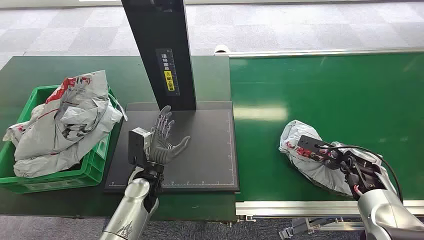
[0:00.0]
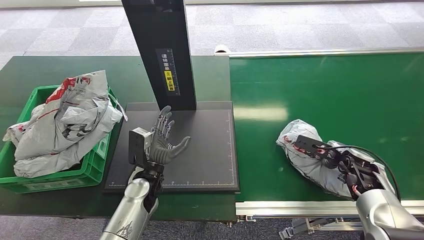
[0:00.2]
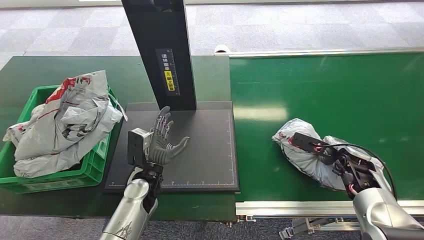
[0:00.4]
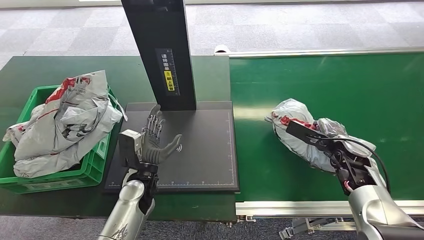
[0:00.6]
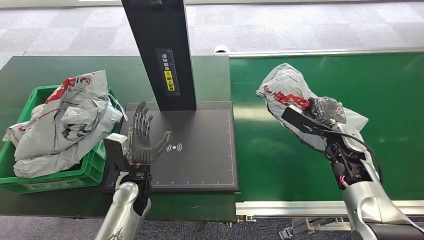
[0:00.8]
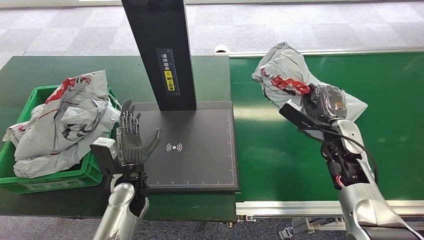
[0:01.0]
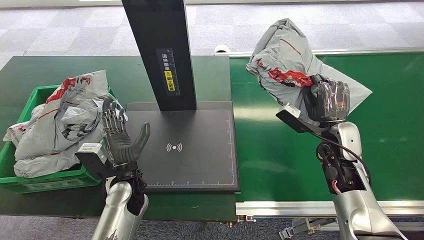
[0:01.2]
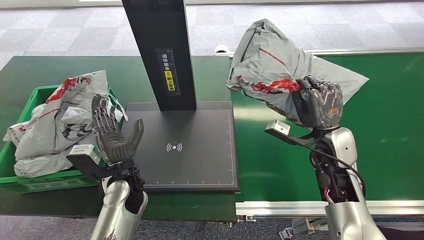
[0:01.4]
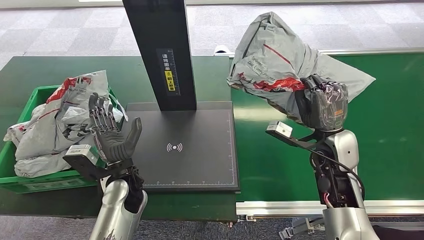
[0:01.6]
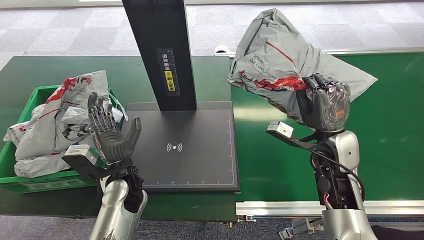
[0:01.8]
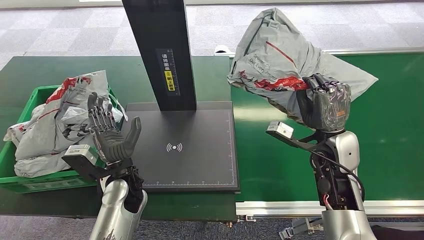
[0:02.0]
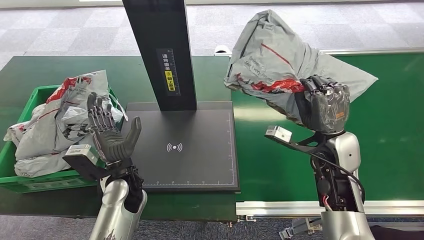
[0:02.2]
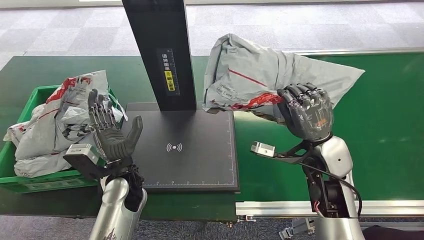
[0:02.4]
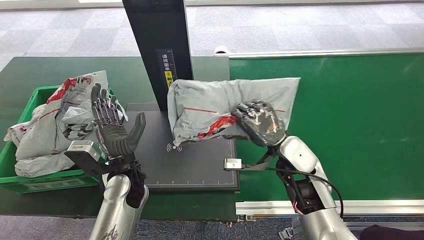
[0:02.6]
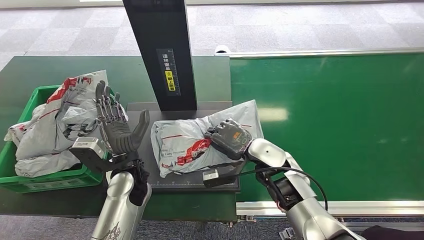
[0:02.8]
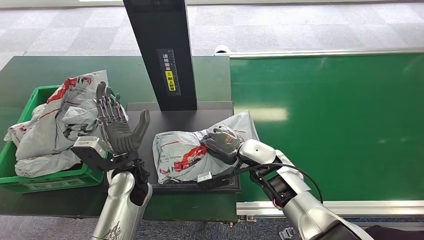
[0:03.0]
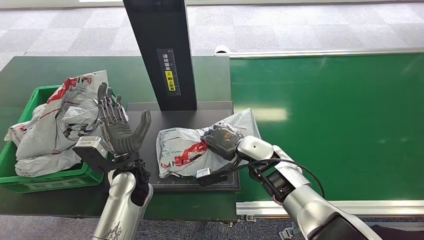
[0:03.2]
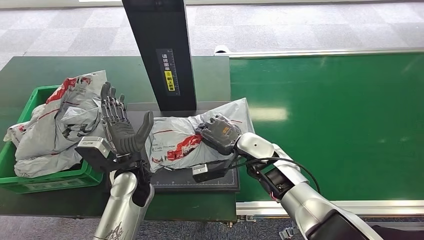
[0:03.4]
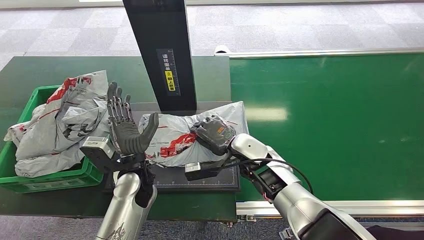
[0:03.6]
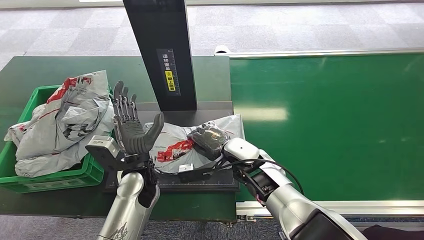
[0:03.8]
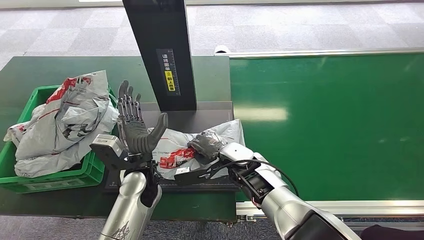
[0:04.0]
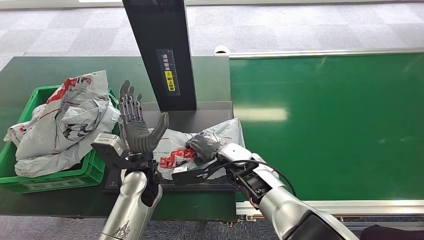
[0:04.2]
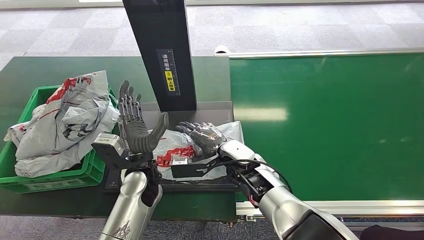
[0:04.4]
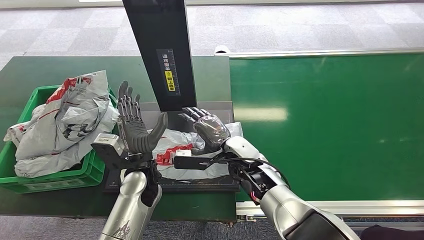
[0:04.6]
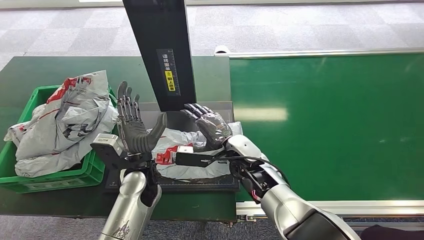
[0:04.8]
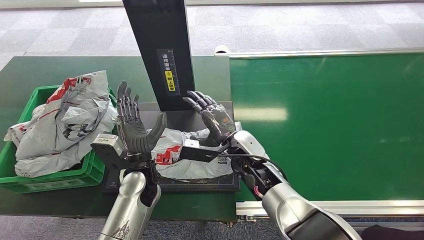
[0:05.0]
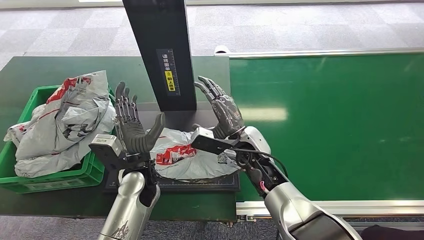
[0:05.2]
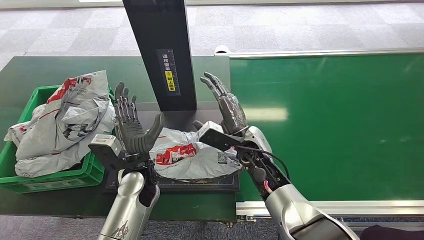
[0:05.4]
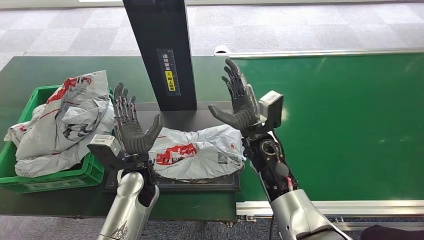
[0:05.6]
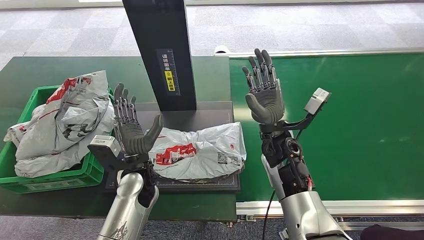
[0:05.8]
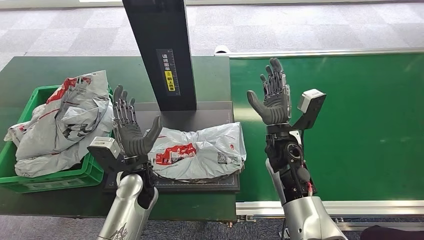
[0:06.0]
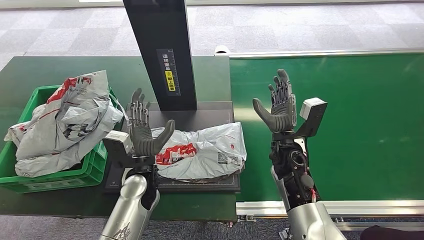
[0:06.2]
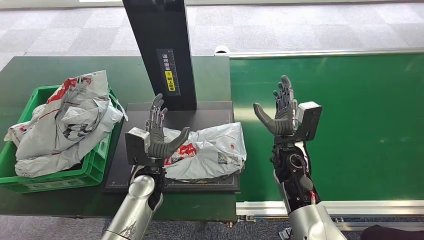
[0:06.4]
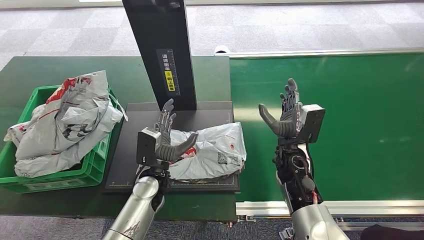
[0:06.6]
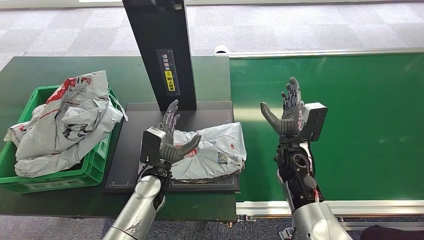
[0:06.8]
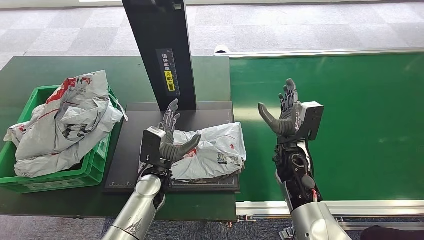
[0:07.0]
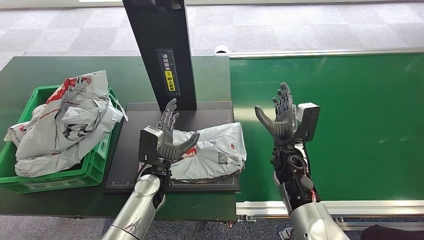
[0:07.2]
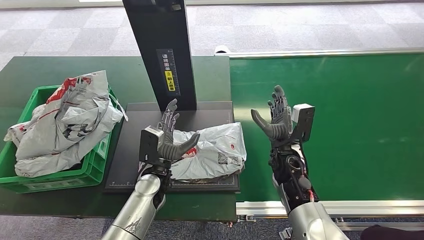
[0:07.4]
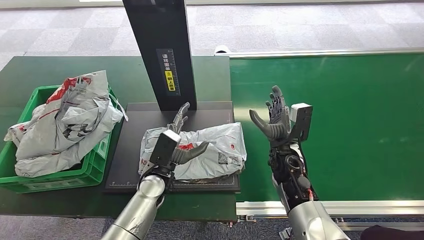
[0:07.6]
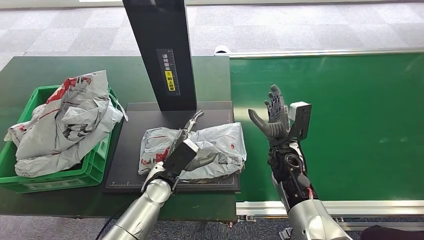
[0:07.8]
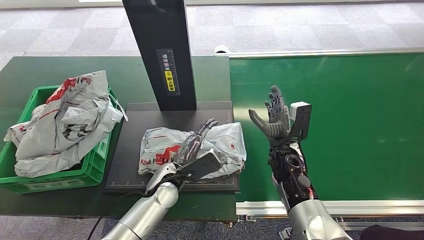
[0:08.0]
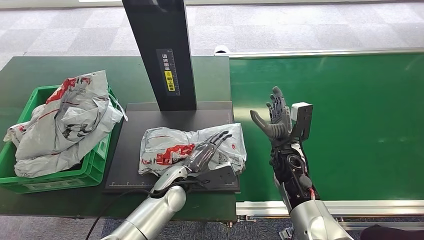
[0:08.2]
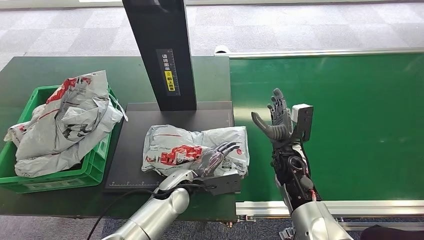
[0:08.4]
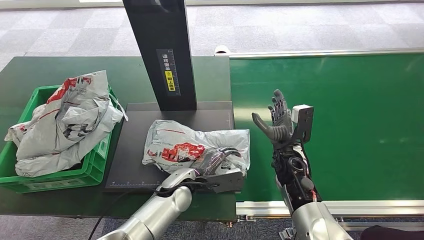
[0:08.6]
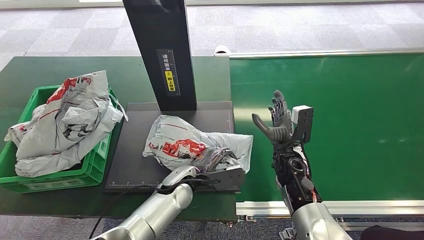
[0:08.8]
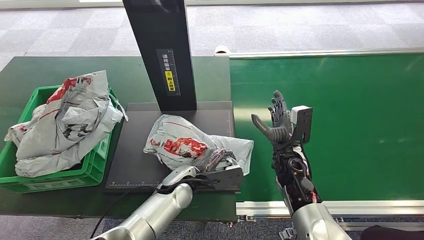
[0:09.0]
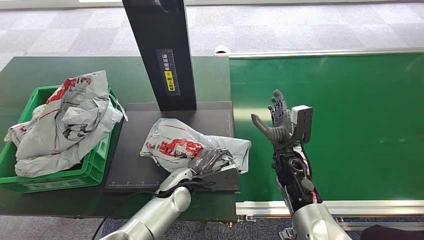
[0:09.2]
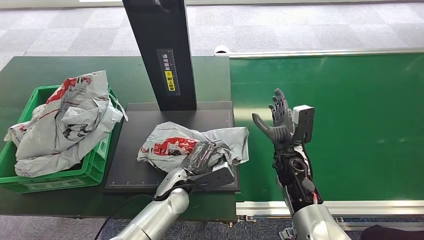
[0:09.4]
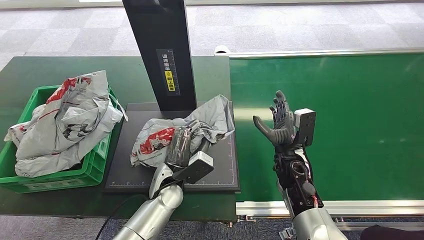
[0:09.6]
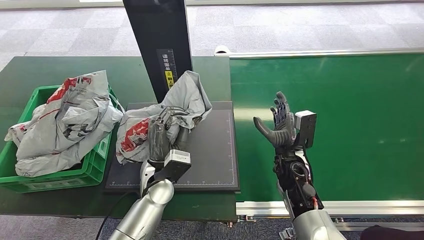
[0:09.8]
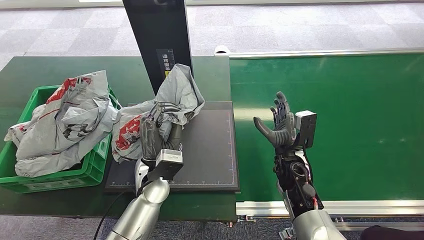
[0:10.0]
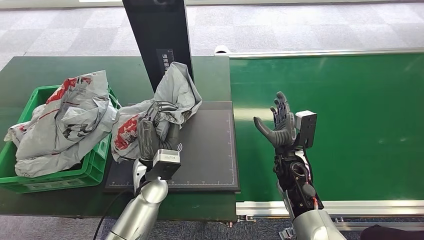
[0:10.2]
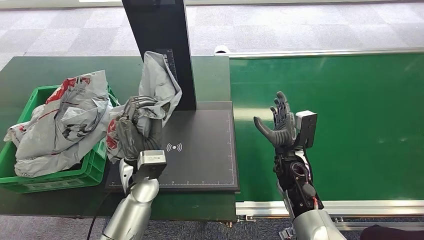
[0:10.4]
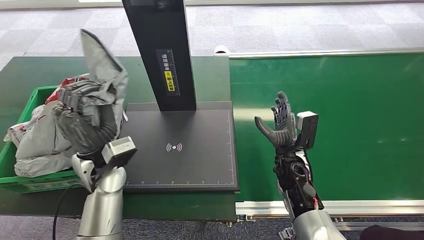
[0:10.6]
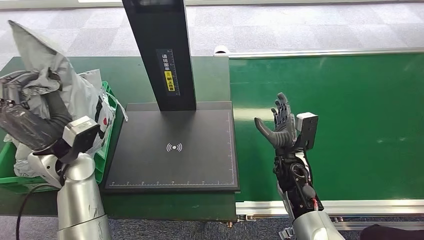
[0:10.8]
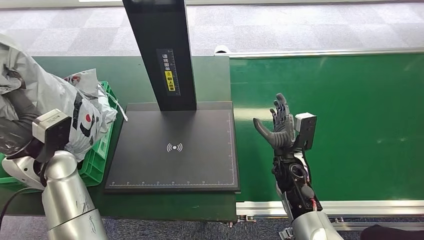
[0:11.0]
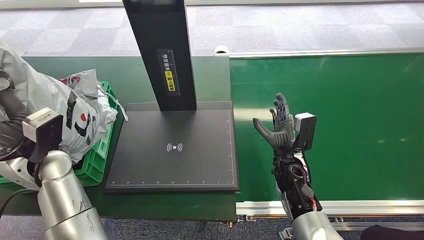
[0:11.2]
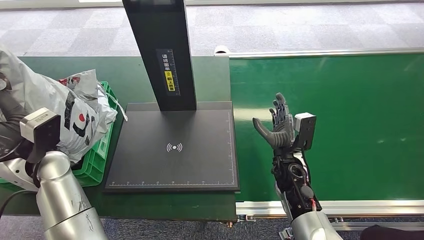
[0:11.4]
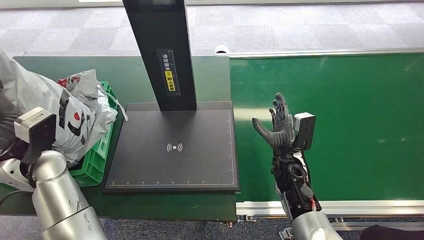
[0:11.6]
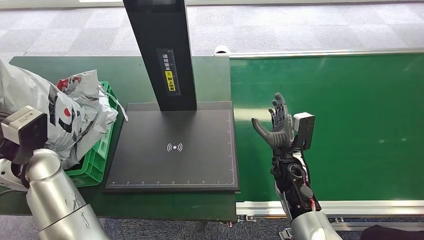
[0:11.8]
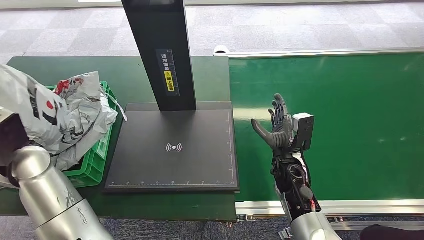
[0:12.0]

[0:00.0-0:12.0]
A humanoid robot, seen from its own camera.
Step, 0:00.0 to 0:01.4: Pick up the package from the conveyor belt.
Step, 0:01.6 to 0:04.0: Place the package onto the inbound machine.
Step, 0:04.2 to 0:10.8: Pick up the package from the inbound machine.
0:03.0 to 0:04.4: The right hand goes roughly 5 cm to the left.
0:04.4 to 0:06.0: The right hand moves to the right, about 5 cm.
0:06.0 to 0:07.6: The right hand travels downward by about 5 cm.
0:07.6 to 0:09.0: The left hand moves about 5 cm.
0:09.0 to 0:10.4: The left hand is displaced upward and to the left by roughly 10 cm.
0:10.4 to 0:12.0: The left hand goes approximately 25 cm to the left and upward.

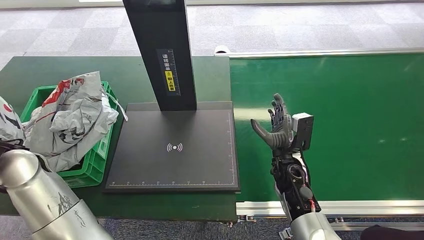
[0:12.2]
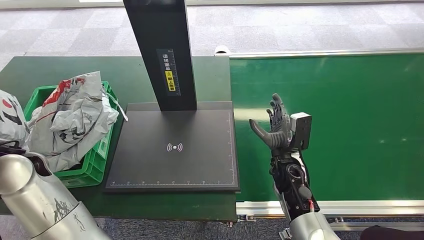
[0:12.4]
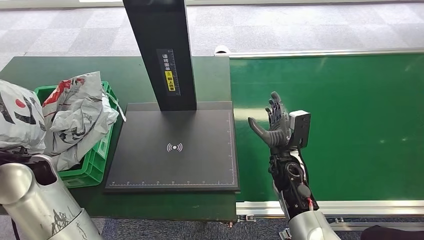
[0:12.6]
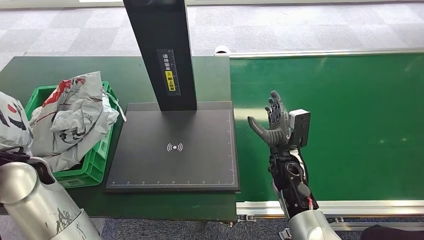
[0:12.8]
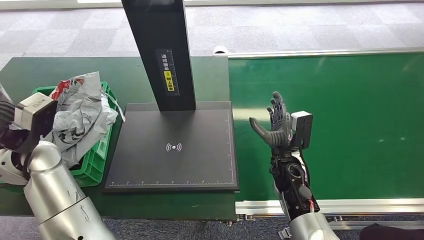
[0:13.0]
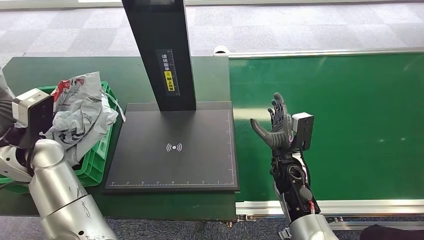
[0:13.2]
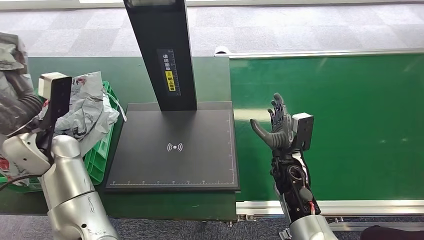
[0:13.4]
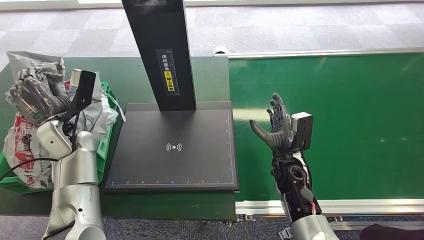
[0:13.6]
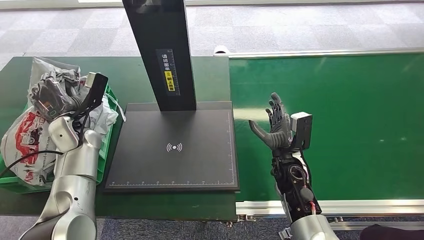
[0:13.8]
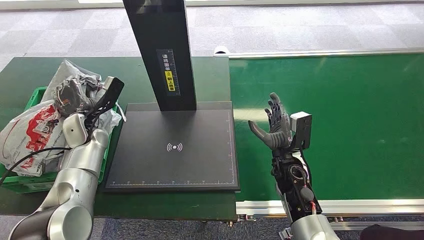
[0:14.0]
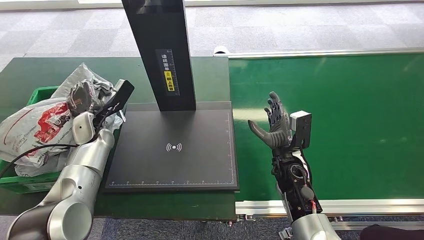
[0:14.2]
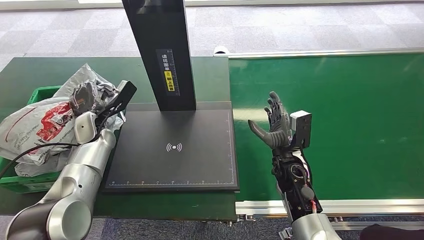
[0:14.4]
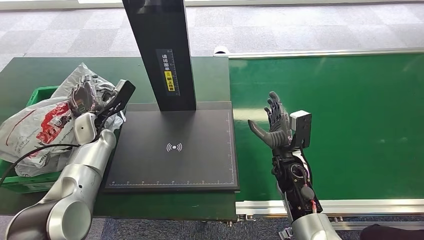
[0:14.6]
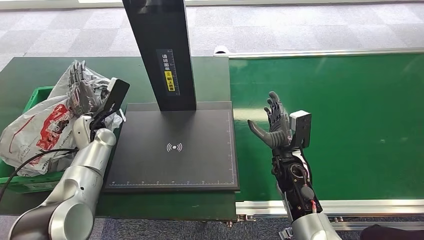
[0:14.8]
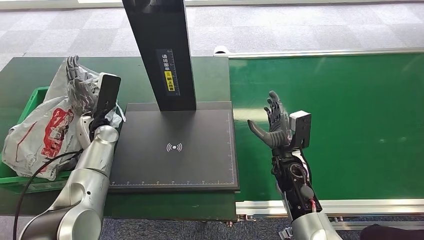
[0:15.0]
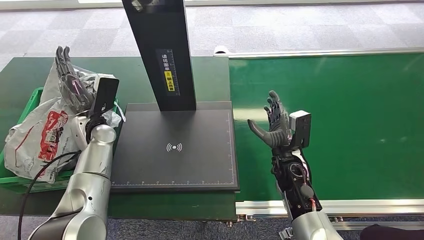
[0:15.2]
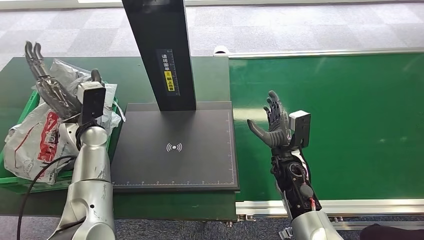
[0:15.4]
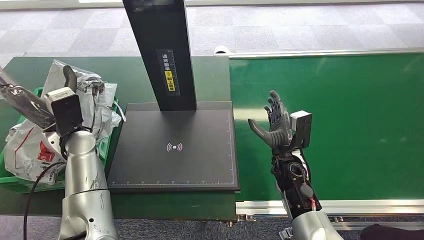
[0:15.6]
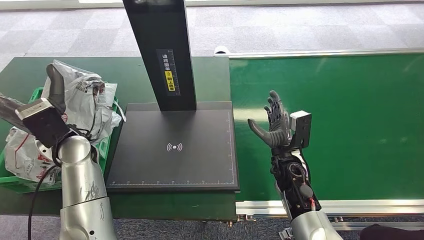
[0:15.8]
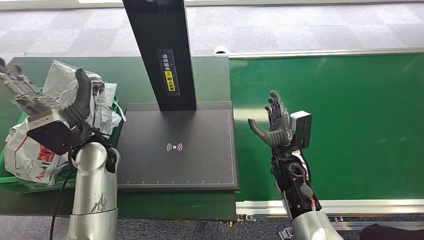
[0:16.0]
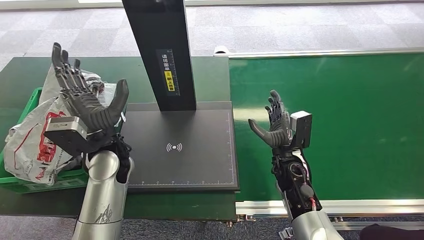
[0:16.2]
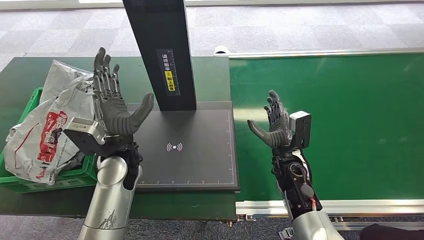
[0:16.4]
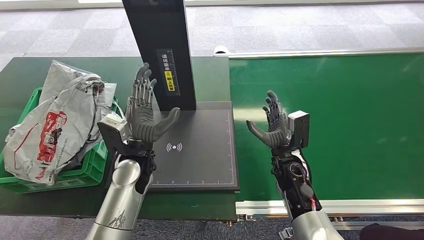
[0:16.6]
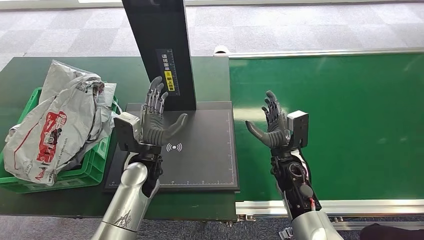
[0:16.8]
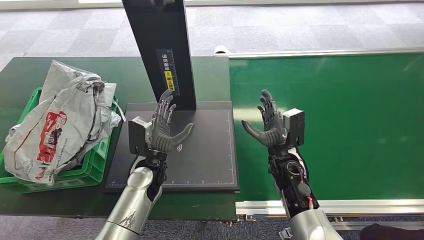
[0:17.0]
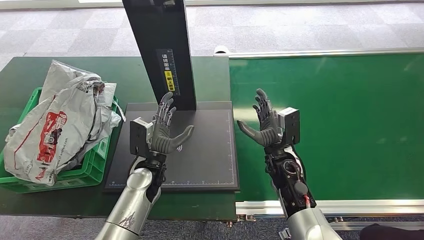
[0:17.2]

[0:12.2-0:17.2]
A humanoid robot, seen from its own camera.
Step, 0:12.2 to 0:17.2: Place the package into the parcel locker.
0:12.2 to 0:13.8: The left hand heads downward and forward, covering approximately 15 cm.
0:13.8 to 0:15.6: The left hand shifts by some 5 cm.
0:15.6 to 0:17.2: The left hand travels to the right and downward by roughly 20 cm.
